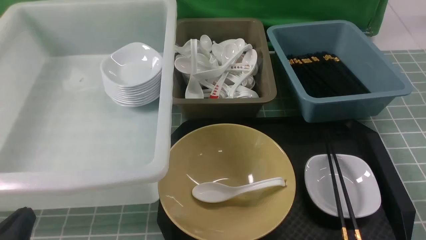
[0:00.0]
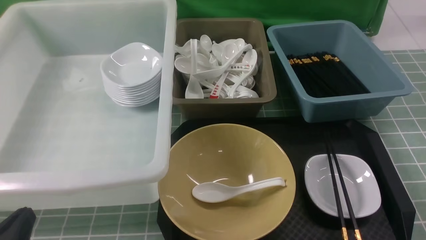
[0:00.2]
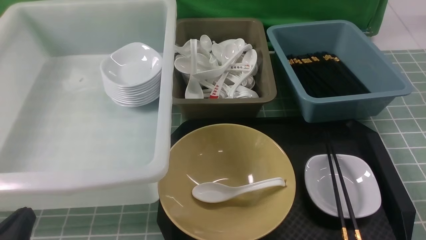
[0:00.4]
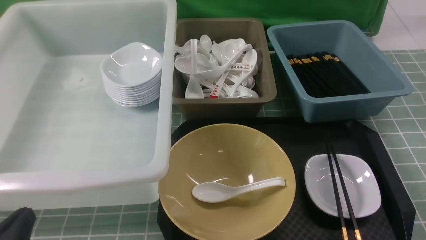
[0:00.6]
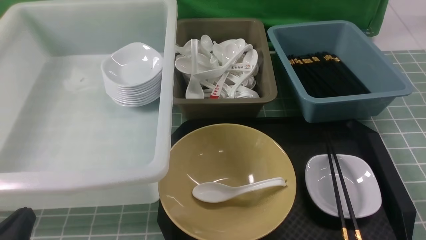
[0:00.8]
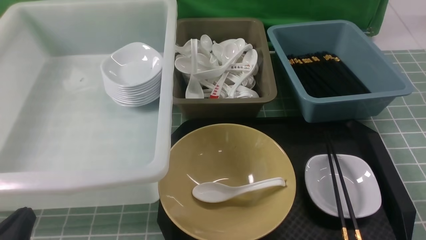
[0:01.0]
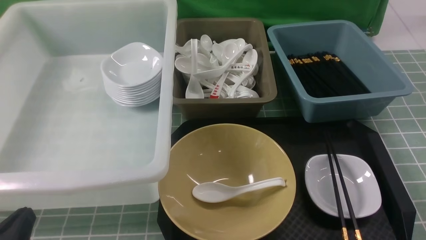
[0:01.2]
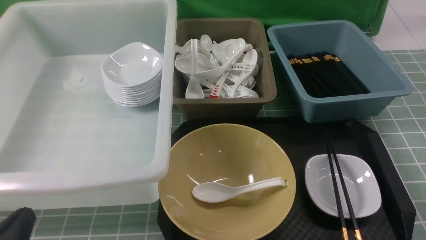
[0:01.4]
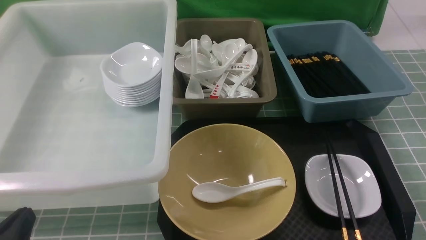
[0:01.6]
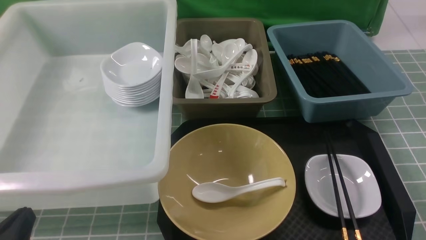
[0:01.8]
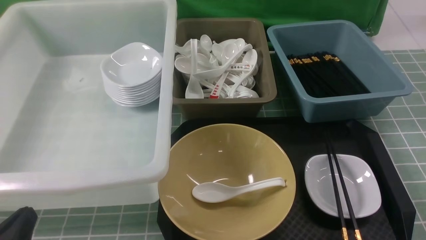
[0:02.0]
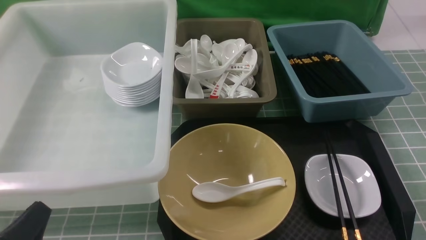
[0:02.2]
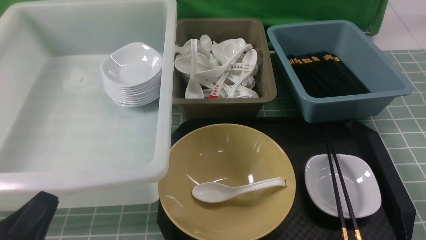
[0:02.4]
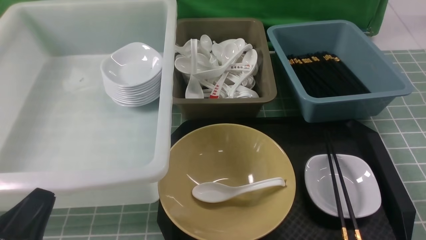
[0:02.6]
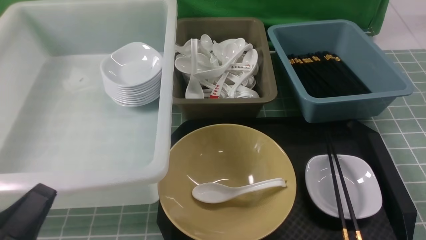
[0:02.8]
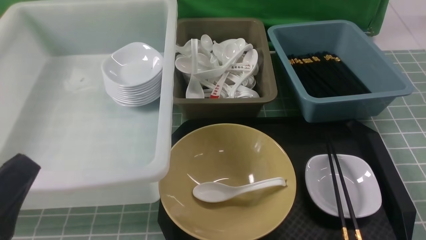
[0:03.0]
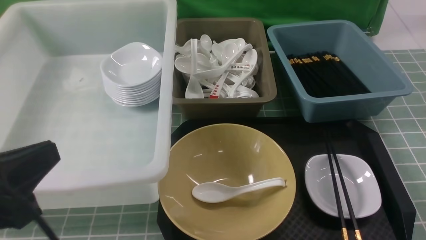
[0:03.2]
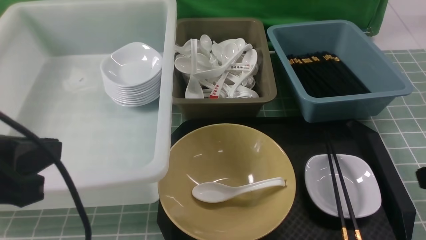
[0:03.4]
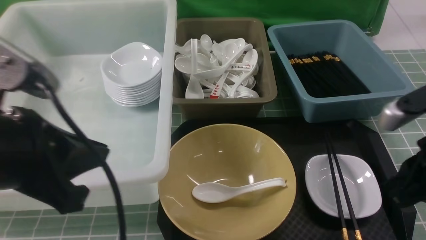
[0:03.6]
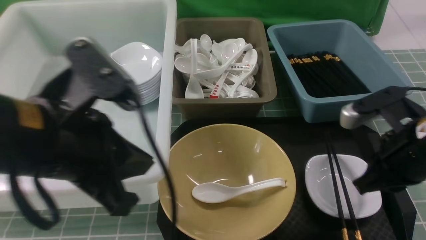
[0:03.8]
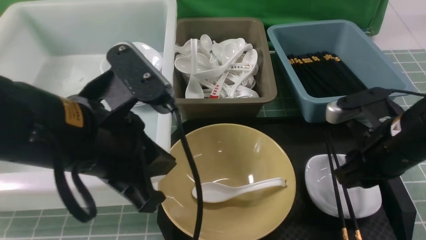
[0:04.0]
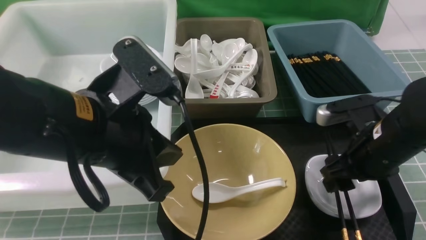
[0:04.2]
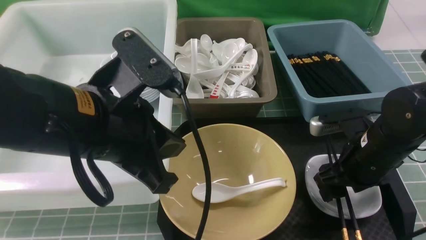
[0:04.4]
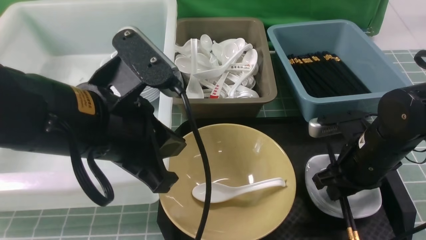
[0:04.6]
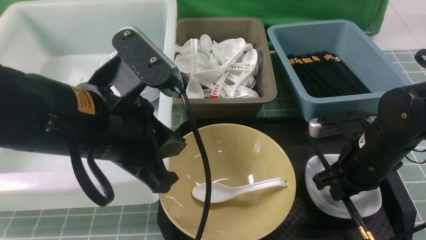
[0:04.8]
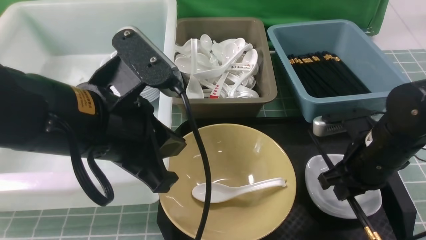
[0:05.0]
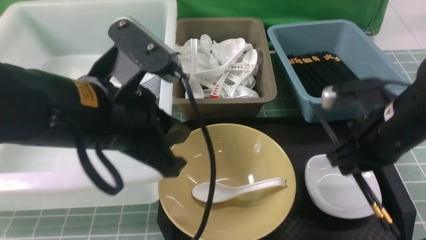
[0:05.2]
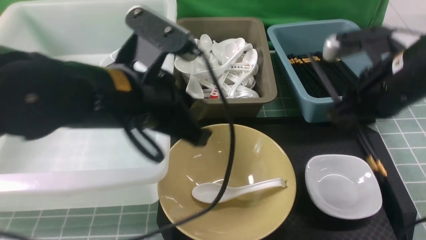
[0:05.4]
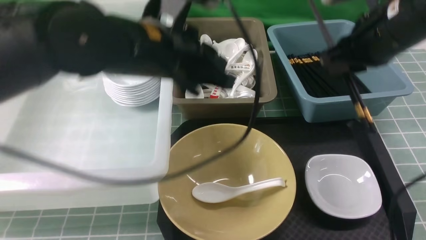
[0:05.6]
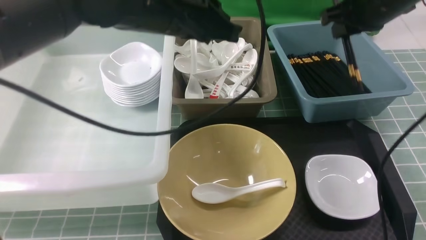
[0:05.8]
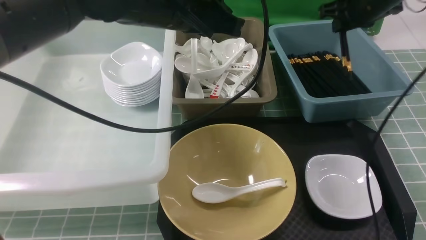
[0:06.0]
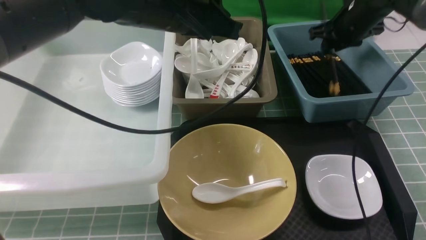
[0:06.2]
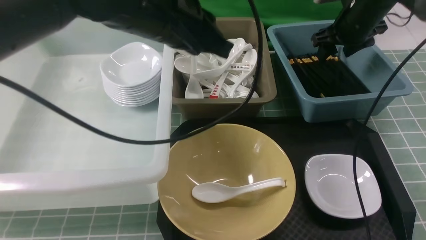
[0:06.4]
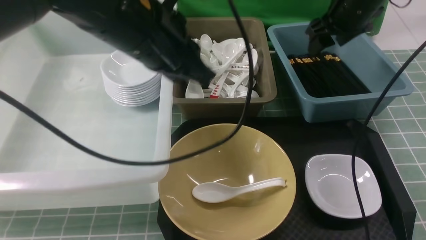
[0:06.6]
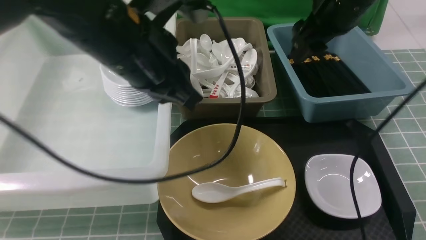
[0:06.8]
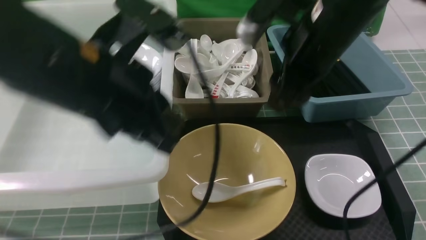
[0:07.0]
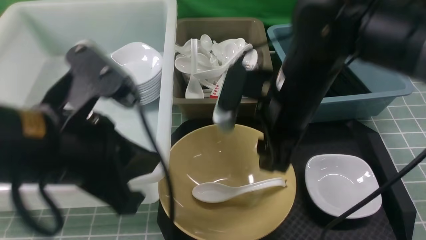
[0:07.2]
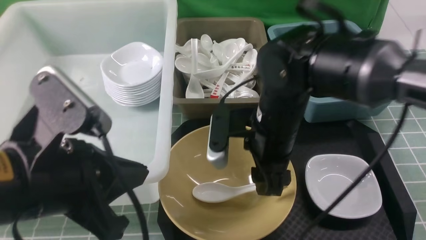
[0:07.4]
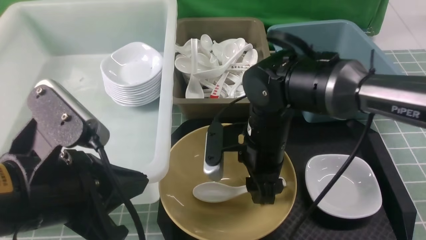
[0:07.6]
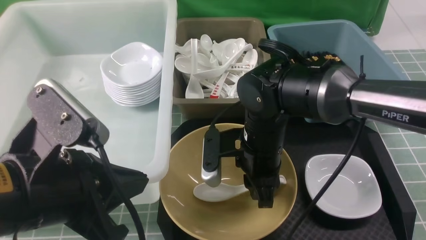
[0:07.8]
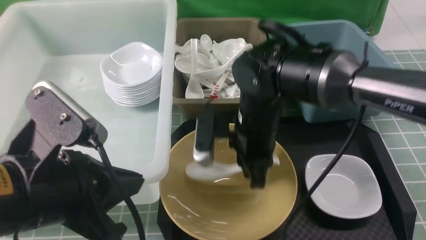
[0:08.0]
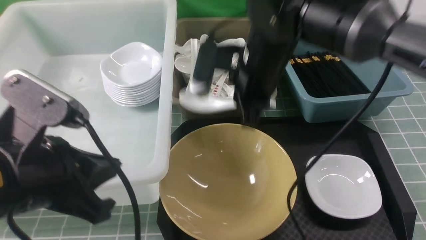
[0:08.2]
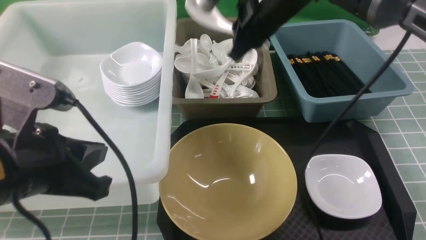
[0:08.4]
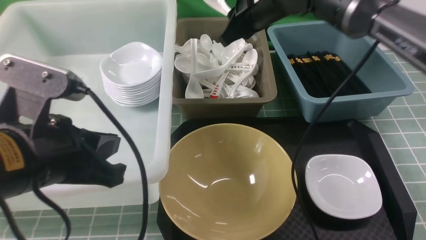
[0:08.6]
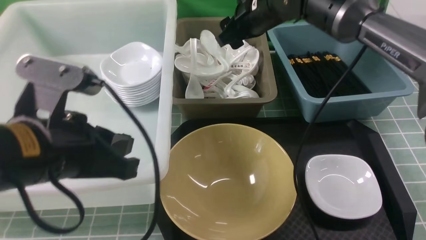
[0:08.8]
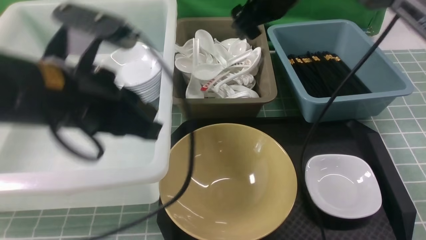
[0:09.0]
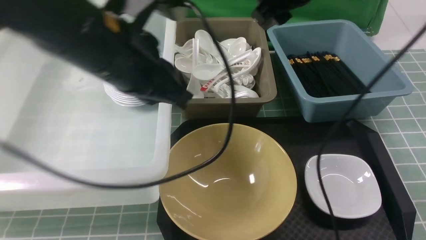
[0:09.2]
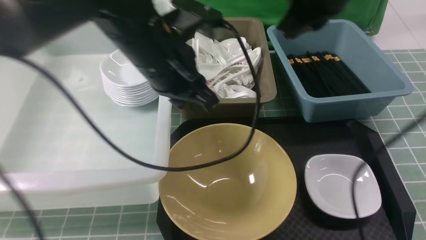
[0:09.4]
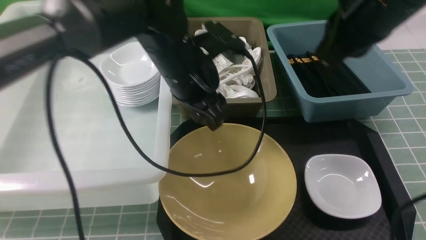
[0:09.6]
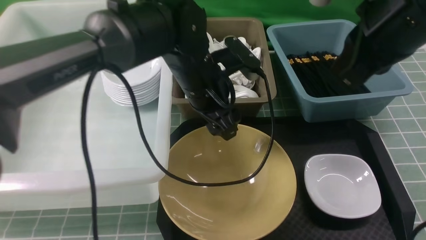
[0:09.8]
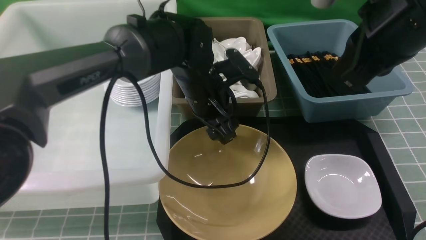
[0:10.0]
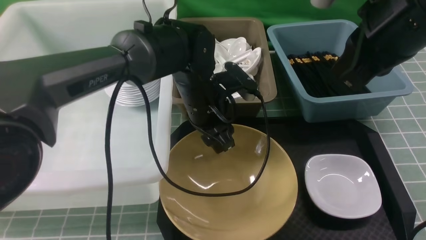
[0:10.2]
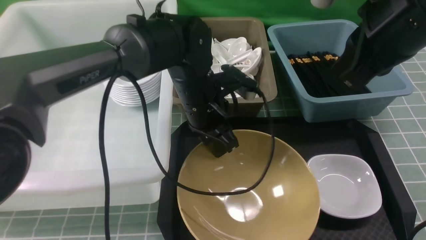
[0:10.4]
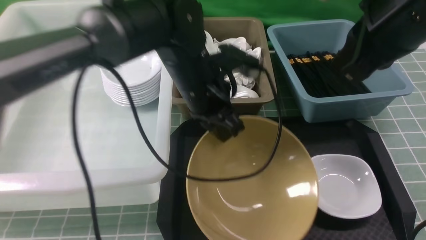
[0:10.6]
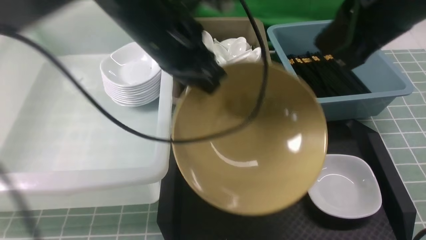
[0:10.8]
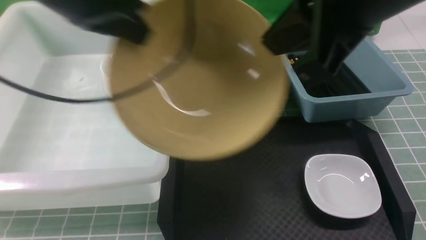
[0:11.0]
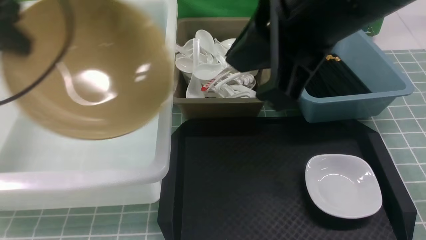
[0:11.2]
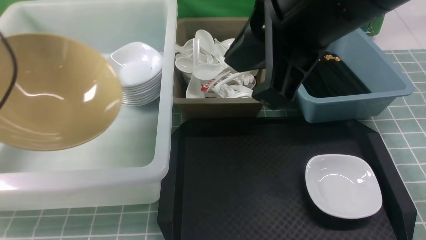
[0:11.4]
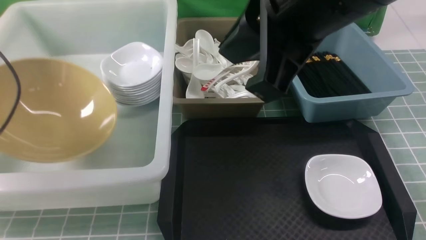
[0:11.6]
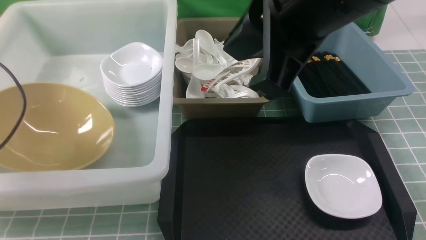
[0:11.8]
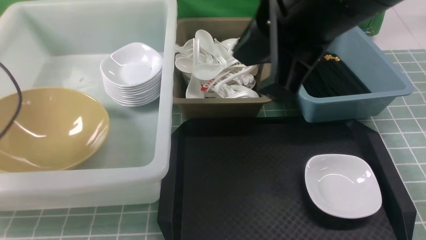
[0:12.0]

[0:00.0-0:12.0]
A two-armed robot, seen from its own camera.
Task of the whole recording: on blue table put chopsticks spoon bowls plates into blue grey white boxes.
Step, 0.0 to 4.8 s: use the right arm to grab the chopsticks.
Step, 5.0 to 6.4 s: use the right arm to put the chopsticks into the small storage box on the right.
Step, 6.6 to 8.0 s: use the right arm to grab the soup spoon in the middle.
Step, 8.2 to 9.0 s: use the right arm to put the soup spoon into the small storage box in the middle.
Step, 9.2 to 10.6 s: use the left arm to grab the yellow noodle bowl on the left.
0.0 to 1.6 s: Both grippers stay put.
1.6 to 3.0 s: The left gripper goes approximately 10 cm upward.
3.0 to 4.4 s: The left gripper goes about 15 cm forward and to the right. Meanwhile the right gripper moves forward and to the left, roughly 20 cm, and opens up.
4.4 to 6.0 s: The left gripper moves forward, approximately 15 cm. Meanwhile the right gripper travels forward and upward by about 25 cm, and closes its fingers.
6.0 to 7.6 s: The right gripper moves to the left, backward and downward, about 30 cm, and opens its fingers; the left gripper shifts roughly 20 cm backward and to the left.
7.6 to 9.0 s: The right gripper goes some 20 cm upward and forward, and closes, then opens again. The left gripper heads forward, covering some 10 cm.
9.0 to 10.4 s: The left gripper is displaced forward, downward and to the right by some 20 cm, and opens and closes again; the right gripper moves backward and to the right, approximately 20 cm, and closes up.
10.4 to 12.0 s: The left gripper is displaced to the left by about 35 cm, and opens up, while the right gripper moves to the left, roughly 10 cm.

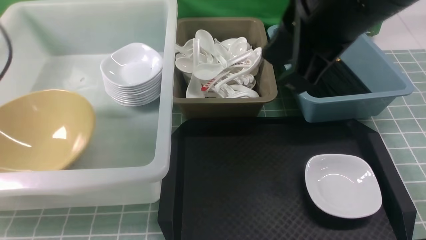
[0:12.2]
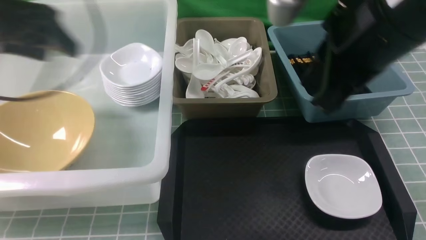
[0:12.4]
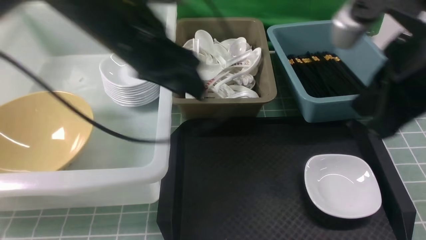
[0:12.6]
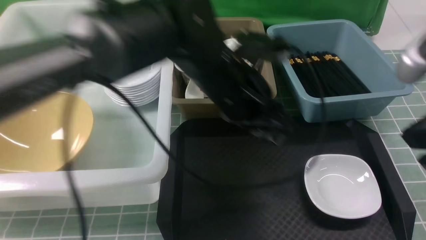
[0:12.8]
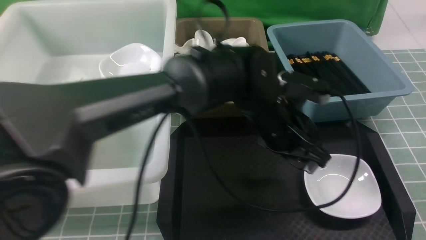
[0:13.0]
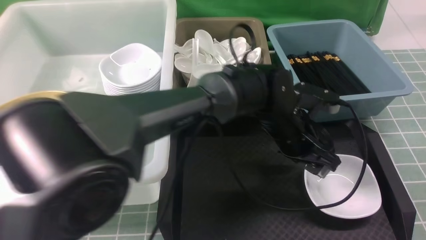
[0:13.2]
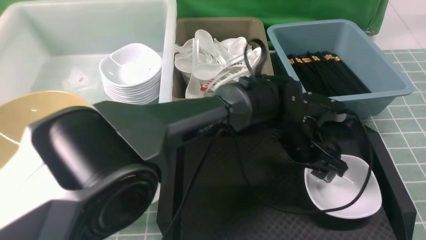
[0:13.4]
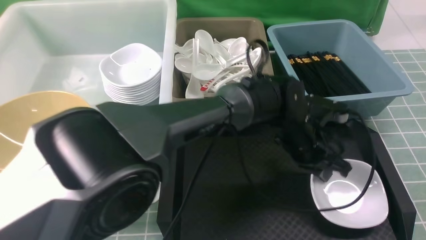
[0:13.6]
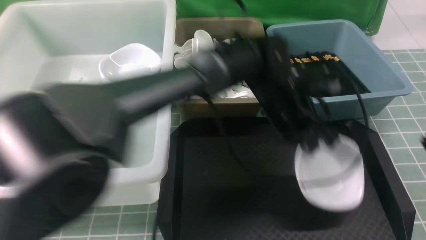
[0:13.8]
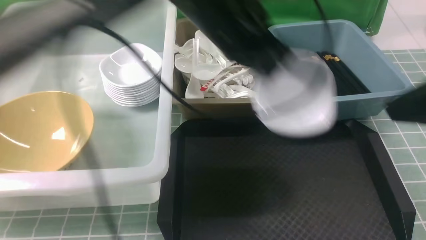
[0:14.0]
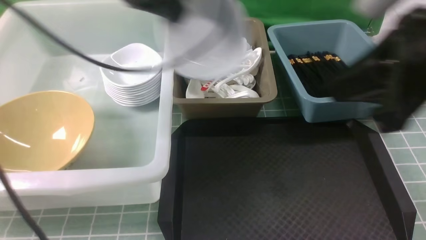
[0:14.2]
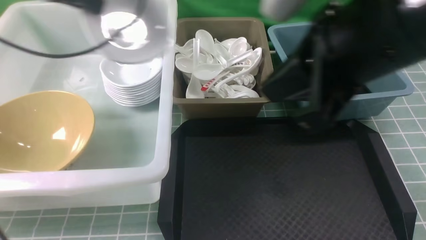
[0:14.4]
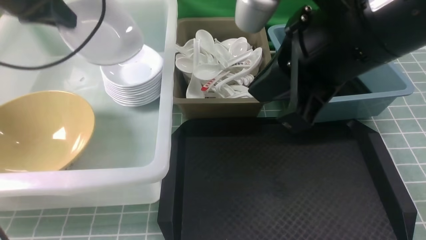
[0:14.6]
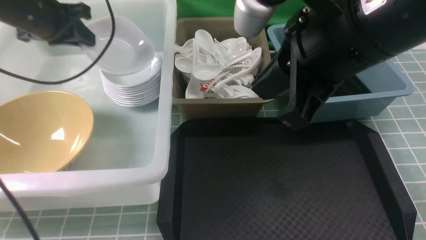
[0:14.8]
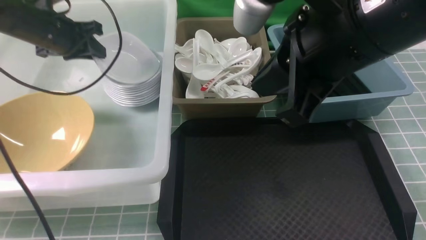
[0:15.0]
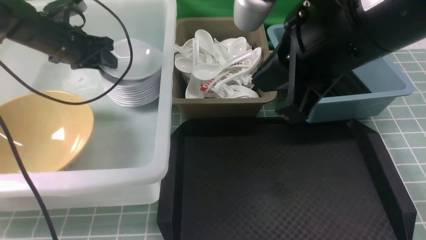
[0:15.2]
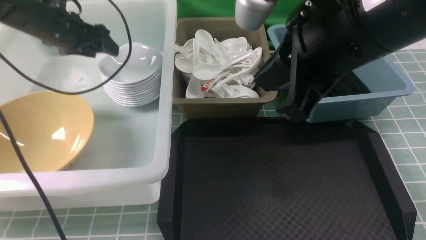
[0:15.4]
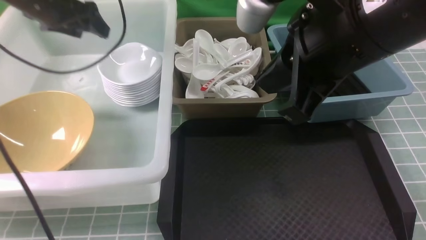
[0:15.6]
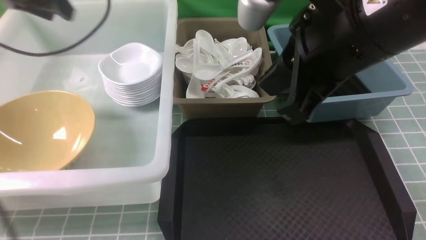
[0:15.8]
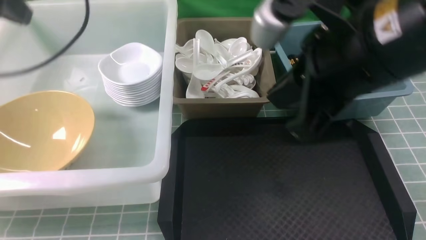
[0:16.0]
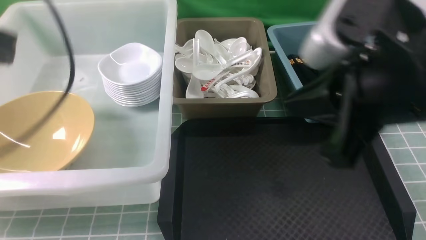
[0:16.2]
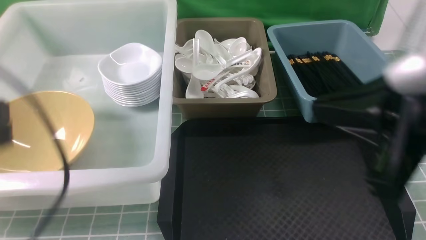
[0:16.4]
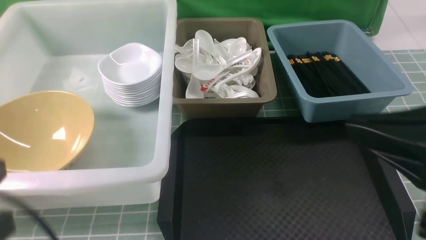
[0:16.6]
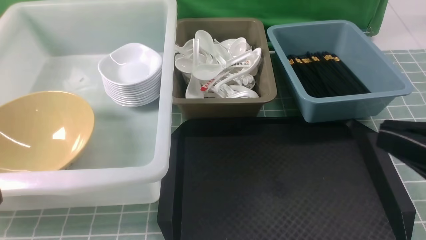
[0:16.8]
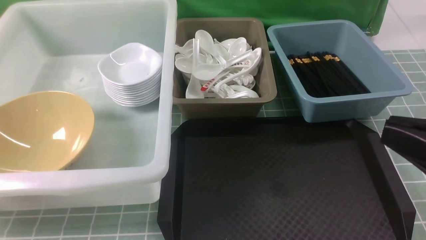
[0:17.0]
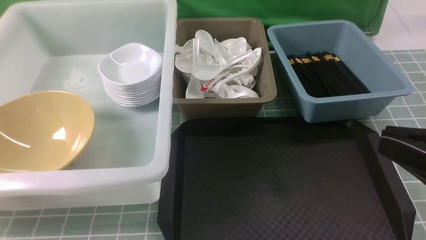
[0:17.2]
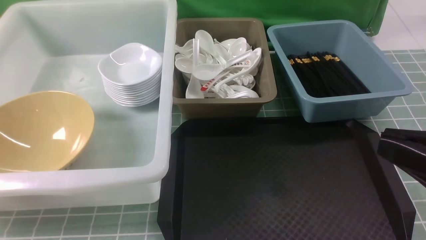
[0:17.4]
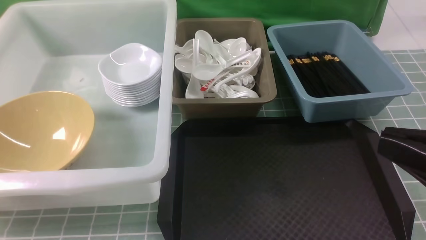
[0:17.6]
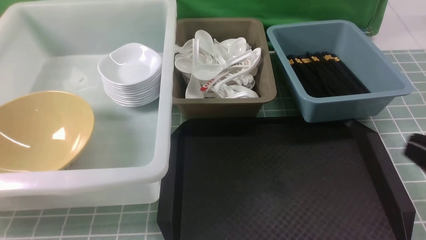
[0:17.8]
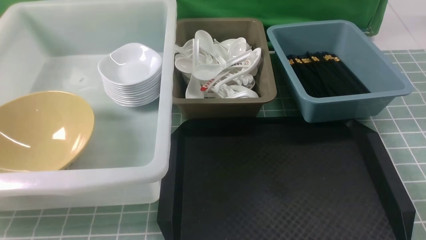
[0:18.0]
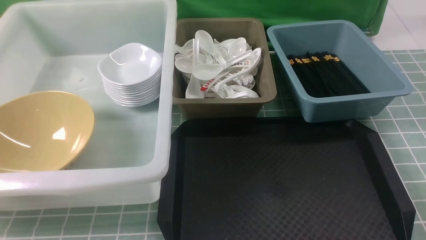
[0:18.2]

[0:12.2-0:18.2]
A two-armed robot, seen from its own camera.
Task of the whole recording: on blue table put chopsticks spoon bowls plates into blue grey white boxes.
Step, 12.4 to 13.8 s: use the left arm to grab the plate.
Step, 14.0 to 15.4 s: use the left arm to put the plate into the large storage box on the left.
12.2 to 13.8 s: The left gripper is displaced to the right by approximately 40 cm, and closes, while the right gripper is displaced to the right, backward and downward by about 15 cm.
13.8 to 15.2 s: The left gripper heads to the left, covering approximately 35 cm, and opens its fingers, while the right gripper goes approximately 15 cm to the left and forward.
15.2 to 16.6 s: The left gripper is displaced backward by approximately 40 cm, and closes up. Meanwhile the right gripper goes some 15 cm backward, to the right and downward.
16.6 to 18.2 s: The right gripper goes approximately 20 cm downward and to the right; the left gripper ends up approximately 5 cm from where it was.
